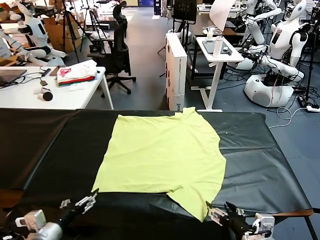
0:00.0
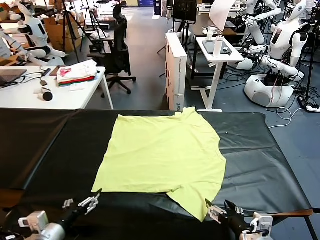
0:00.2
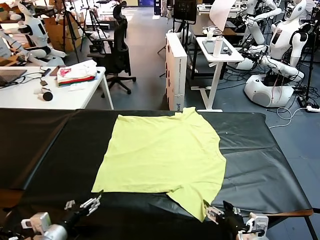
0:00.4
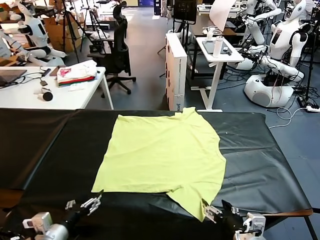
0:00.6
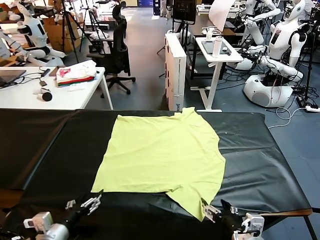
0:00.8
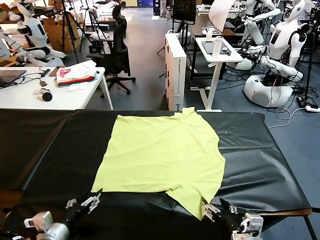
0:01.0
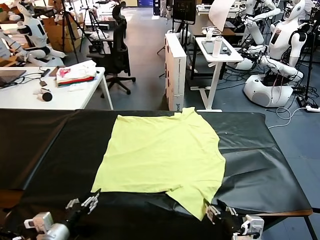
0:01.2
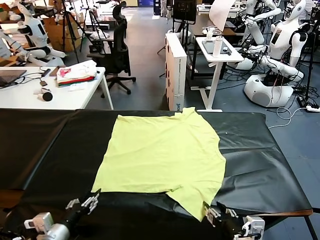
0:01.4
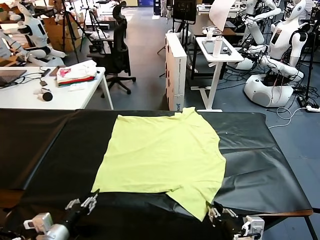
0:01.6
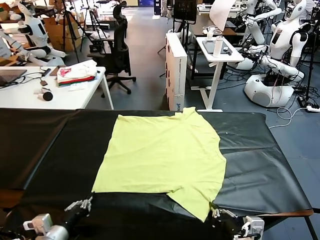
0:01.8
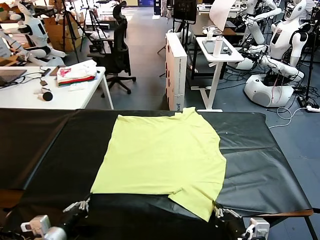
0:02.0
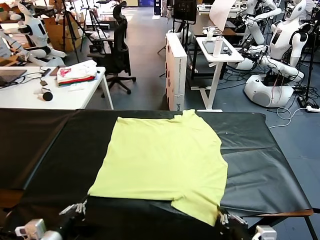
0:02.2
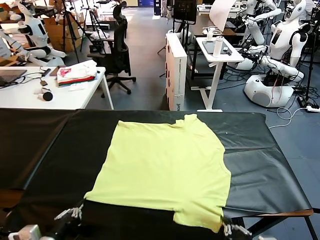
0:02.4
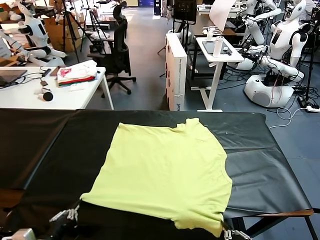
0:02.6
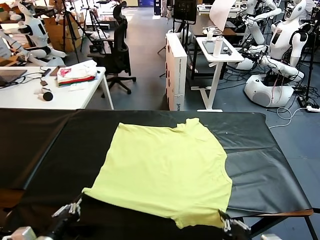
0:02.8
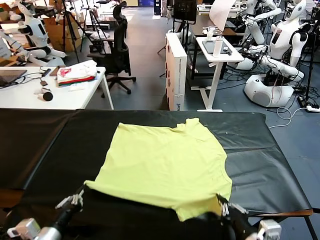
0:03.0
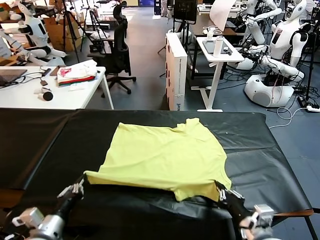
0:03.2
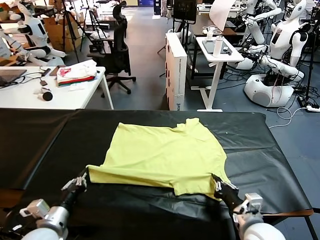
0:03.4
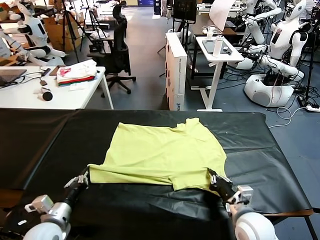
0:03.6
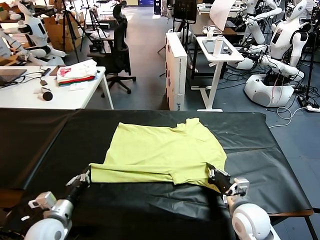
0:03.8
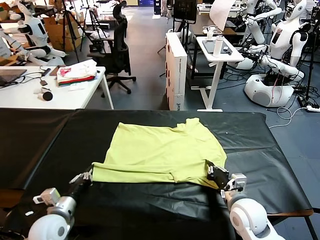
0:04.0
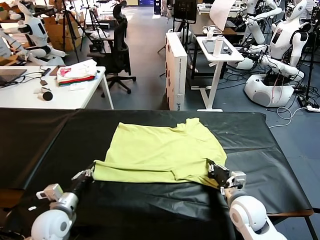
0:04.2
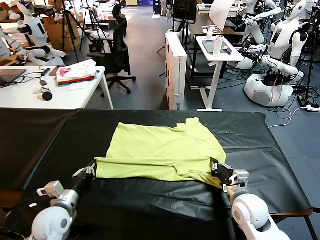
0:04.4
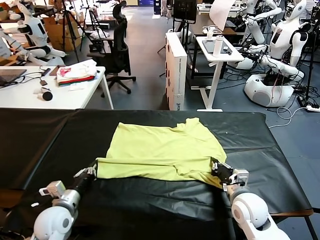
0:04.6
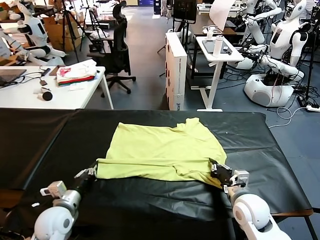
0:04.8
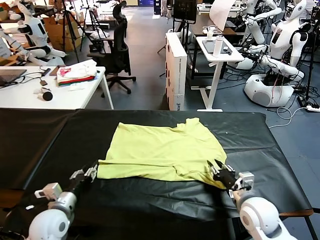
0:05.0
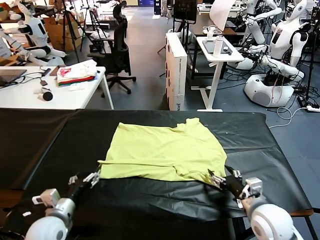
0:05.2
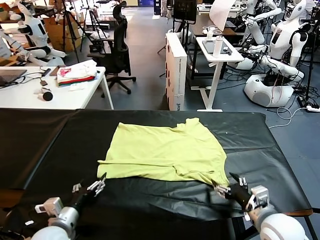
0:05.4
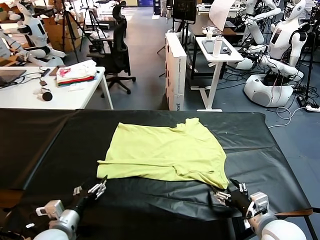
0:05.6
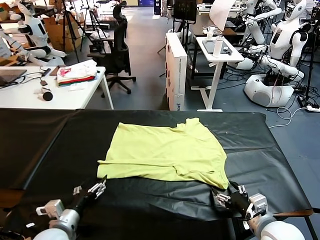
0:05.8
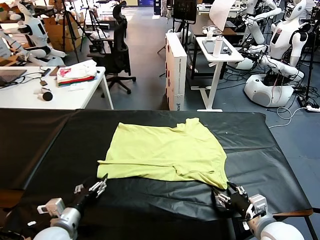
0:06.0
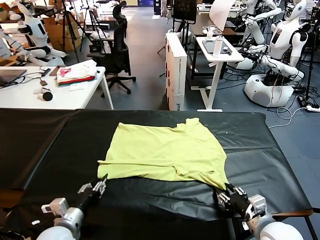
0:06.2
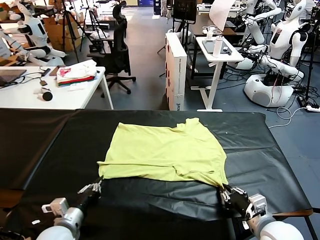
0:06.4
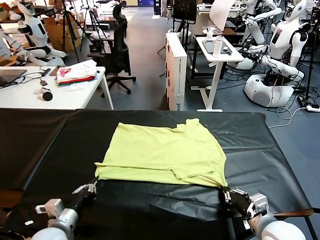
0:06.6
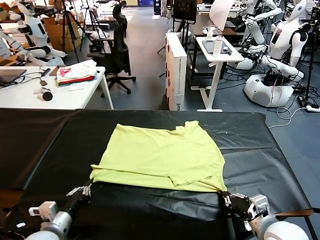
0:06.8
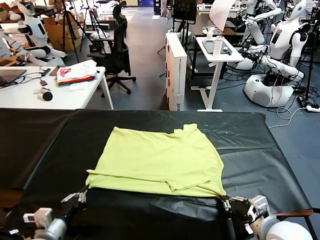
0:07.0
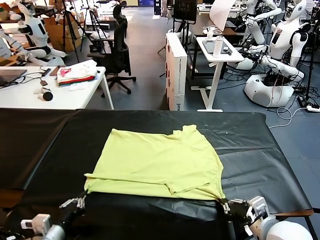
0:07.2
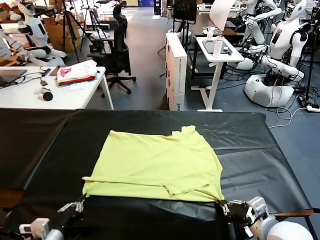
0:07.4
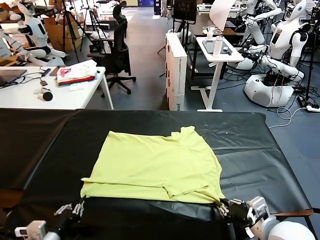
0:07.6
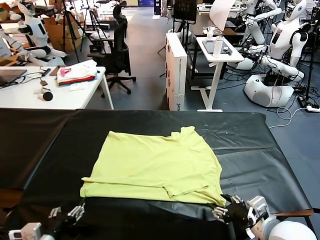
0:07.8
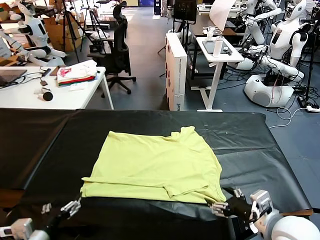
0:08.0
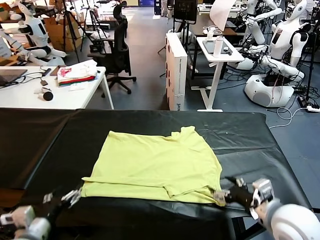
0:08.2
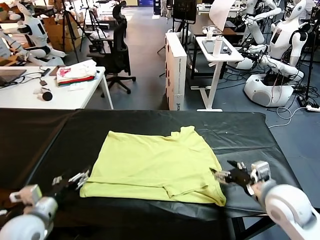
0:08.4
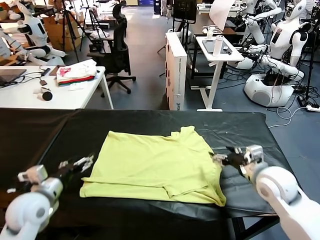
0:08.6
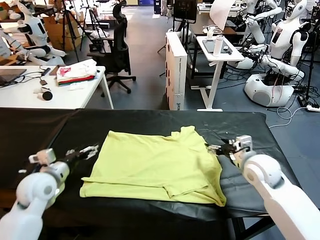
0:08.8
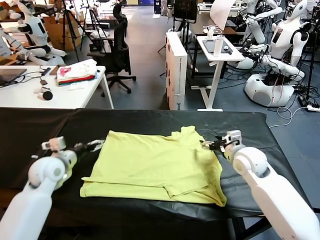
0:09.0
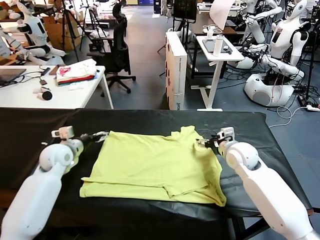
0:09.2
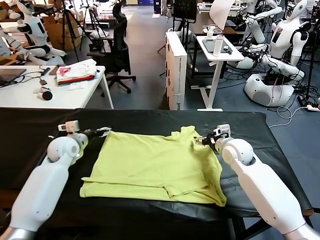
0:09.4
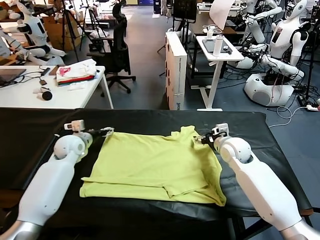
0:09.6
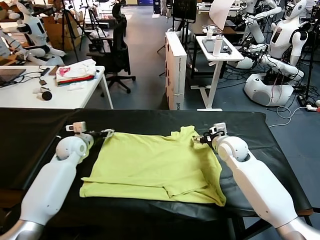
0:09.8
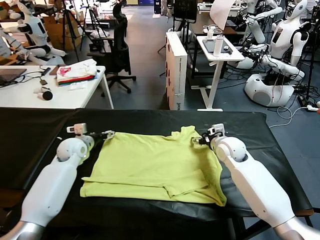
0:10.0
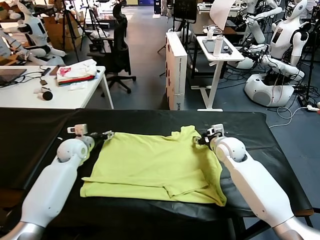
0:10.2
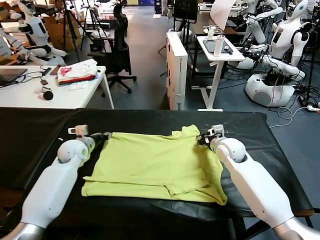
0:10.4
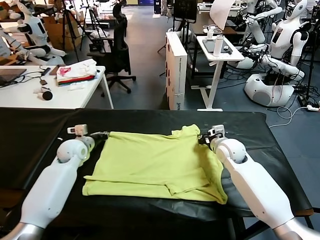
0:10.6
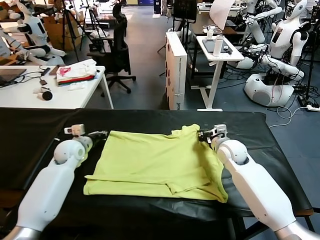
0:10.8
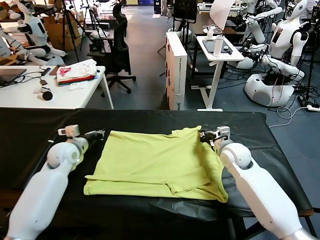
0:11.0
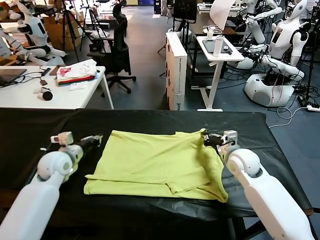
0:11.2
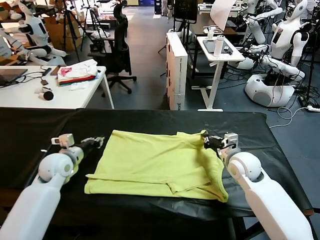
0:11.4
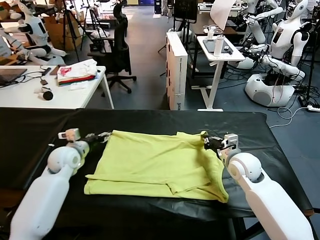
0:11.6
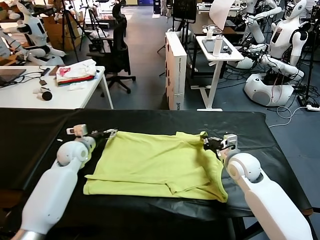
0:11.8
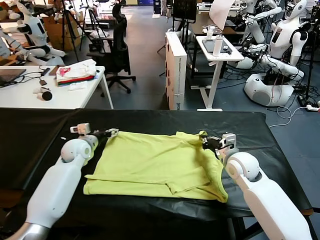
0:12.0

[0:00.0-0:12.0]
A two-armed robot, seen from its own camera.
Task of the whole recording: fold and organize the clothes.
Step, 0:00.0 to 0:02.2: use both grippers simultaneously to clamp the lower edge of the clothing fabric.
Step, 0:02.4 to 0:05.0: use both grippers to drag the lower edge of the fabric forward and fold it over the upper edge.
Step, 0:05.4 to 0:07.8: Drag the clothes downward with both gripper.
0:01.6 to 0:03.0: The right gripper heads forward and downward, covering some 20 cm.
0:03.0 to 0:04.4: The right gripper travels backward by some 10 cm. Meanwhile the left gripper heads forward, covering some 10 cm.
0:04.4 to 0:06.0: The left gripper is displaced backward by some 5 cm, and opens its fingers, while the right gripper opens up.
0:06.0 to 0:07.6: The left gripper travels backward by some 5 cm, and closes and opens again, while the right gripper travels forward by roughly 15 cm, and opens.
0:07.6 to 0:09.0: The left gripper shifts about 30 cm forward, and opens; the right gripper moves forward, to the left and downward, about 15 cm.
0:09.0 to 0:10.4: The right gripper shifts some 5 cm backward, and closes, while the left gripper is displaced forward by approximately 10 cm, and closes up.
0:10.4 to 0:12.0: The left gripper travels backward and back again, approximately 10 cm each way, and opens its fingers.

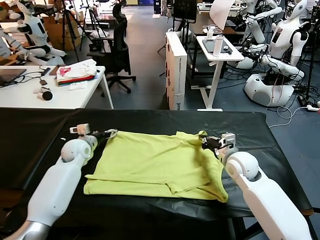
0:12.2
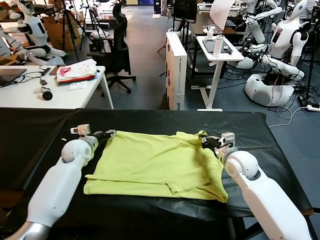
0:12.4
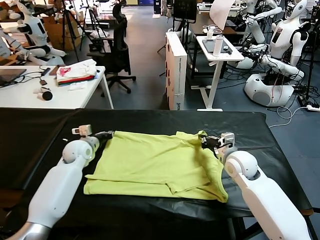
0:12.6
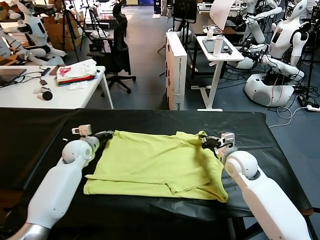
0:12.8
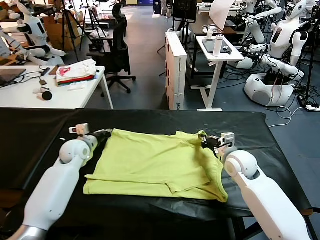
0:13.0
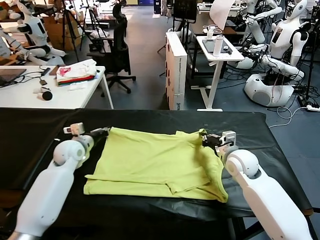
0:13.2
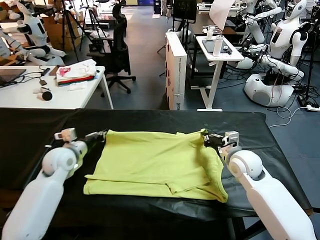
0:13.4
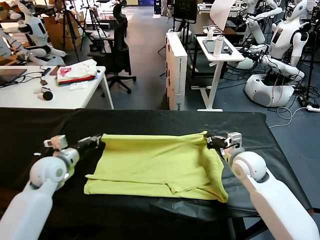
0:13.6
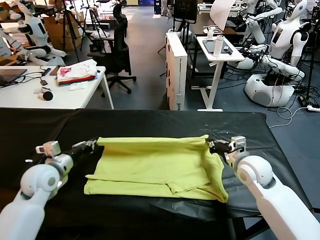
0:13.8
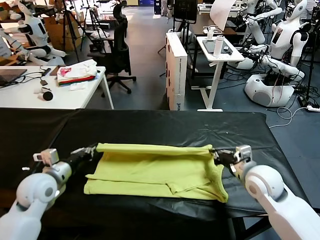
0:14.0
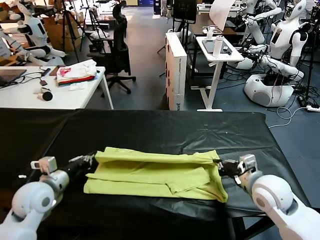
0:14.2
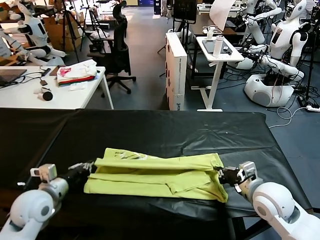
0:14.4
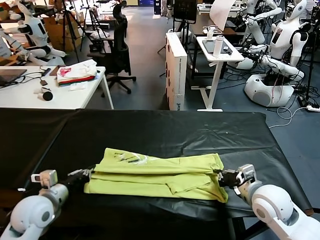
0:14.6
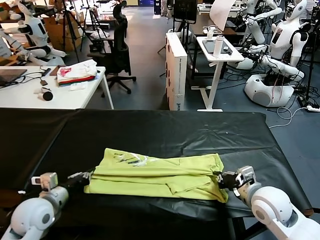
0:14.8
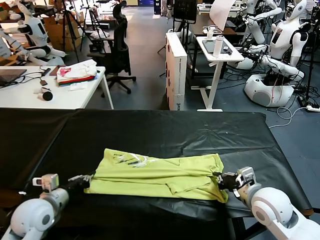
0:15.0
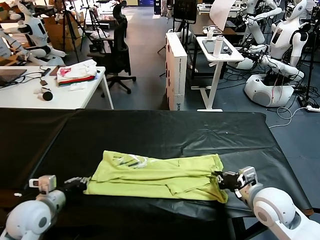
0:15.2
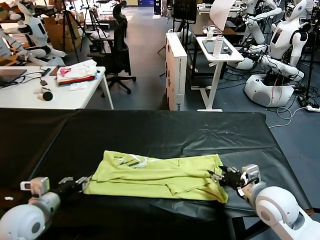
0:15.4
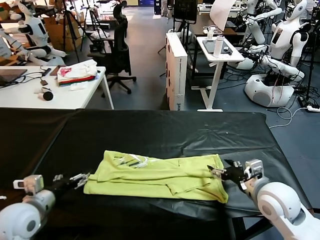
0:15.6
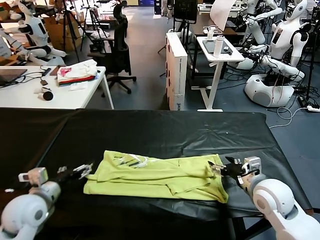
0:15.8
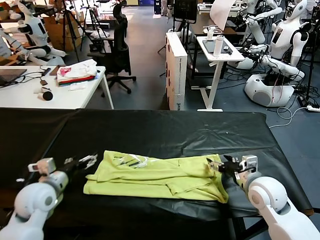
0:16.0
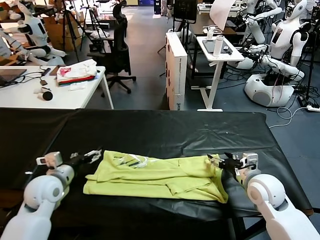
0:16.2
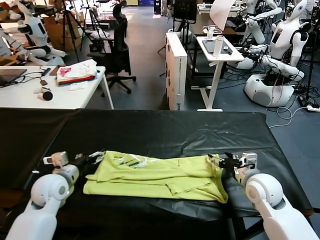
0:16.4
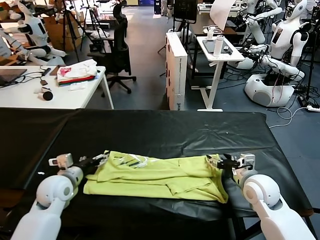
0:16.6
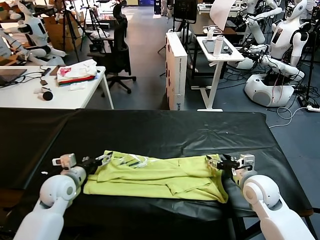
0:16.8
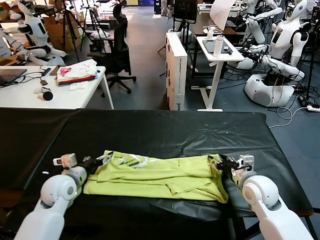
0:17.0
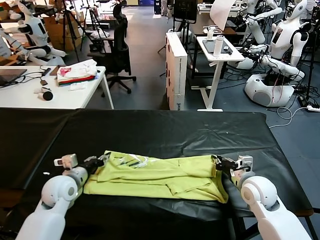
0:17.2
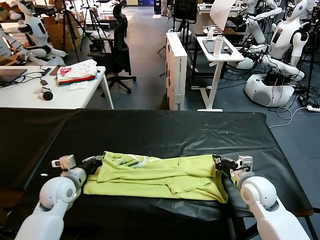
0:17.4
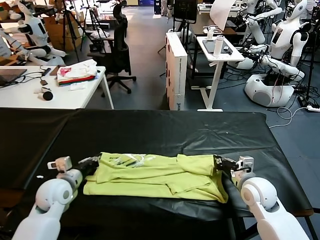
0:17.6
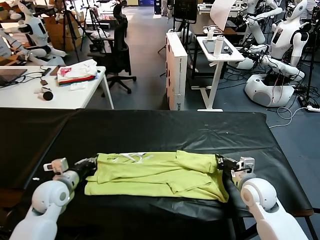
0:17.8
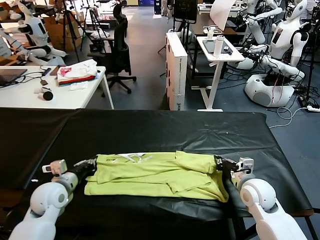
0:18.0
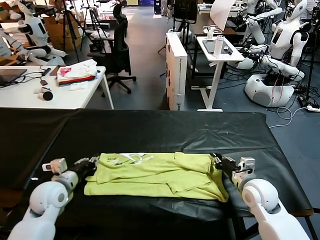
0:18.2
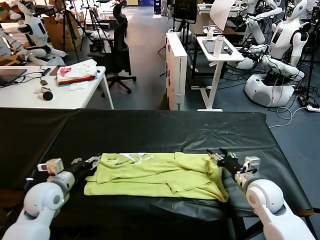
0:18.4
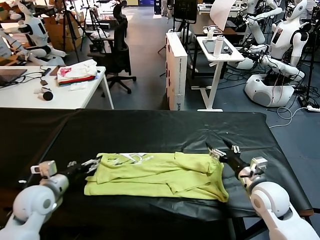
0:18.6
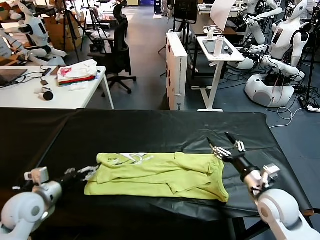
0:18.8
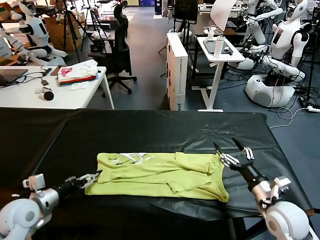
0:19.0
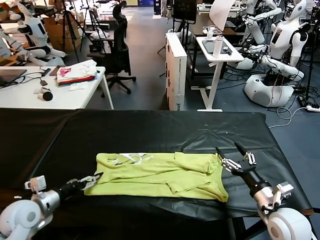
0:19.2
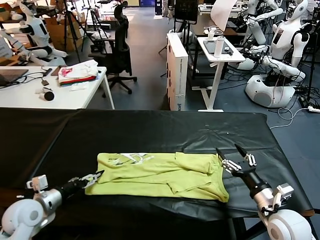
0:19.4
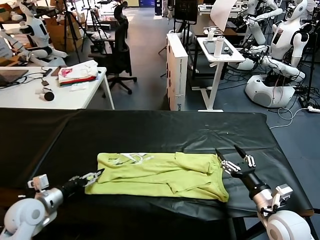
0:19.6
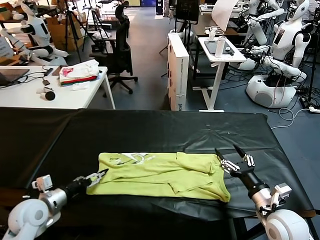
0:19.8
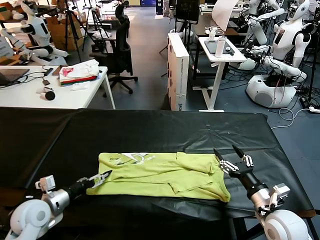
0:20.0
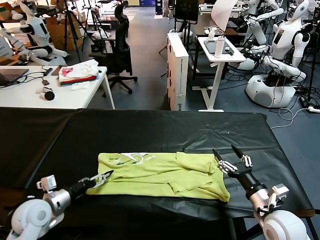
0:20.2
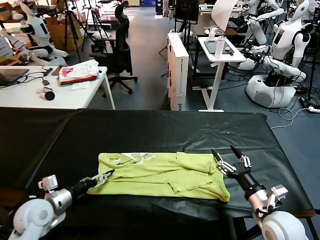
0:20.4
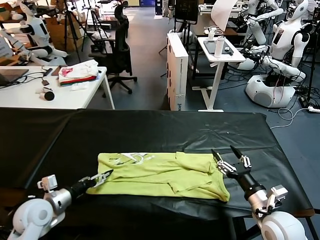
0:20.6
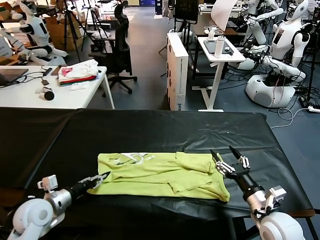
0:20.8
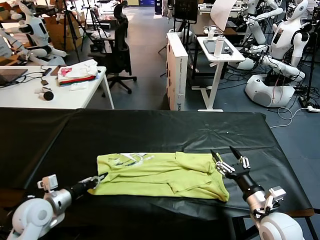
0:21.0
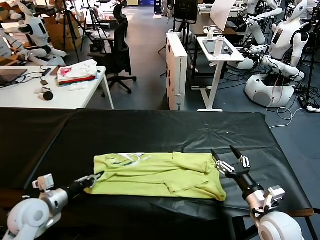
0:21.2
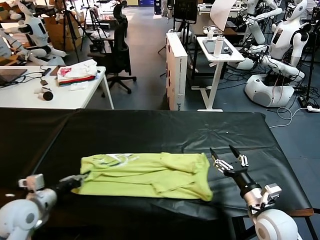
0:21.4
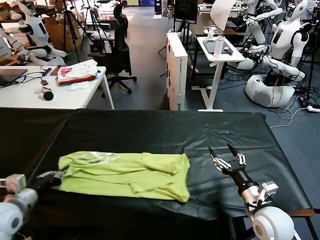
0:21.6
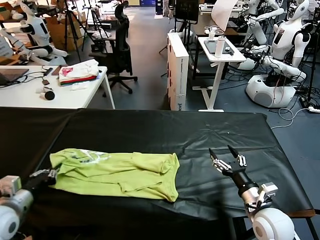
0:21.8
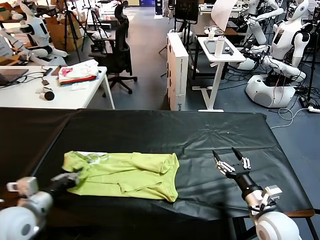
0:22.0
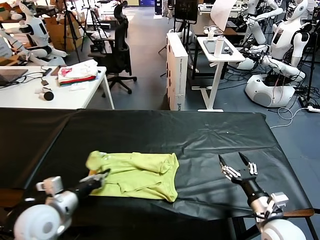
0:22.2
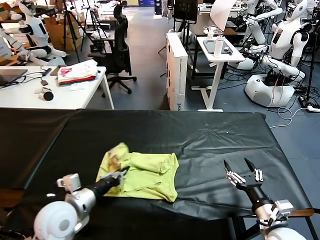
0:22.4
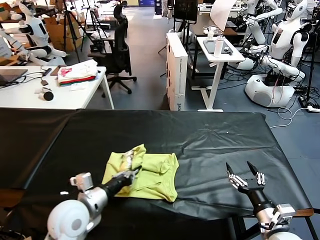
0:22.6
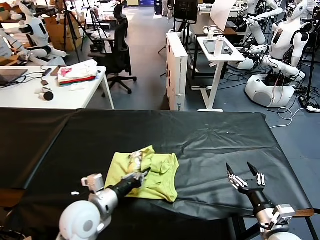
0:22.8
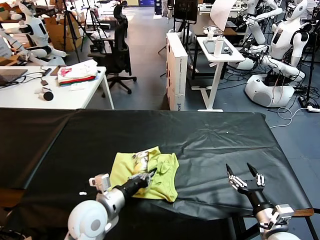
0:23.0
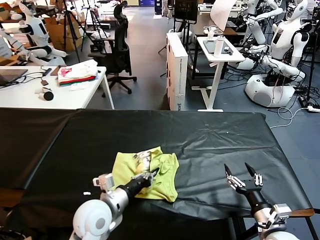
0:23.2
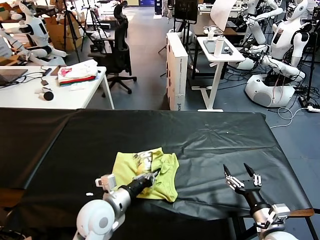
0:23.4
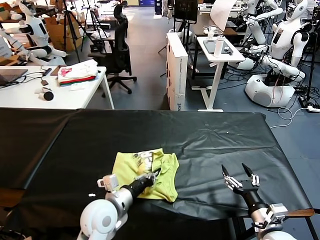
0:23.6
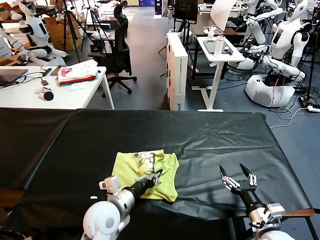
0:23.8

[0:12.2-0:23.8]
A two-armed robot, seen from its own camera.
Task of the whole recording: fold and organize the clothes.
Step, 0:13.0 to 0:15.4: use both grippers to drag the upper edge of the fabric backward and fold it over the lower edge.
Step, 0:15.6 to 0:21.0: use the left gripper to clamp the left edge of the fabric.
0:12.2 to 0:13.6: The right gripper heads backward, covering approximately 15 cm, while the left gripper shifts roughly 15 cm backward and upward, and closes its fingers.
0:13.6 to 0:15.0: The left gripper travels backward by approximately 10 cm.
0:15.0 to 0:16.6: The right gripper shifts approximately 5 cm downward, and opens. Meanwhile the left gripper moves forward, roughly 10 cm, and opens up.
0:16.6 to 0:18.0: The left gripper closes its fingers. The right gripper closes up.
0:18.0 to 0:19.4: The two grippers go some 5 cm backward. The left gripper opens up; the right gripper opens.
0:19.4 to 0:21.0: The left gripper closes.
0:21.0 to 0:22.4: The right gripper moves backward, about 5 cm, while the left gripper heads to the right, covering about 10 cm.
0:22.4 to 0:23.8: The left gripper goes approximately 10 cm to the right.
